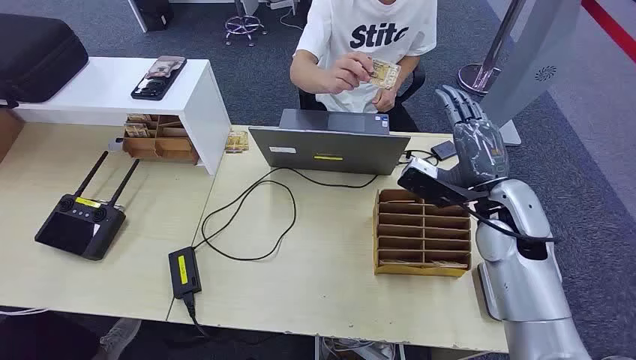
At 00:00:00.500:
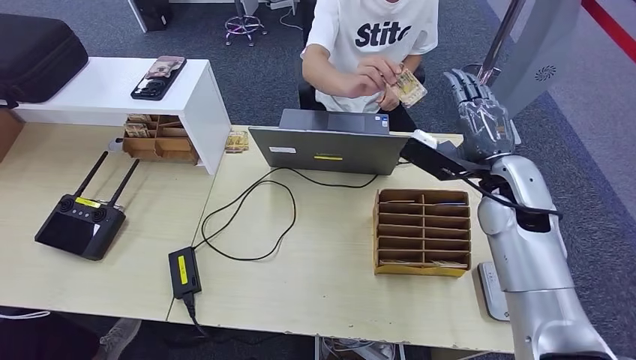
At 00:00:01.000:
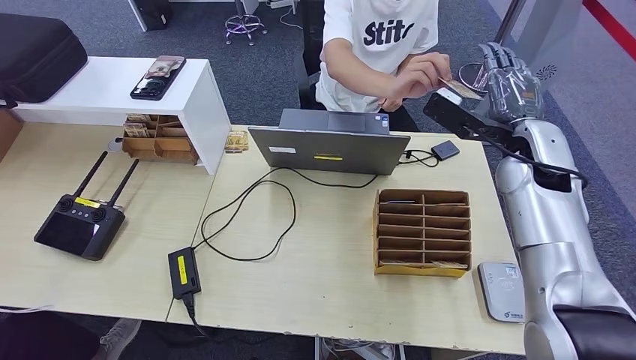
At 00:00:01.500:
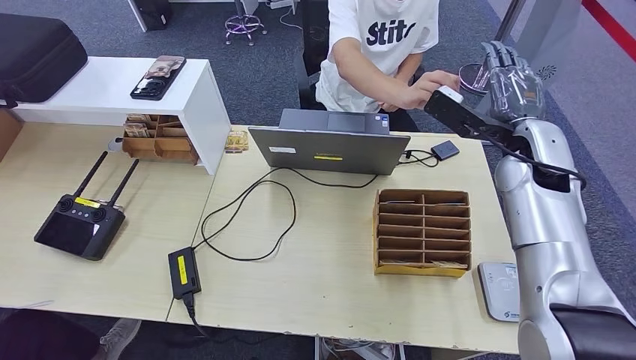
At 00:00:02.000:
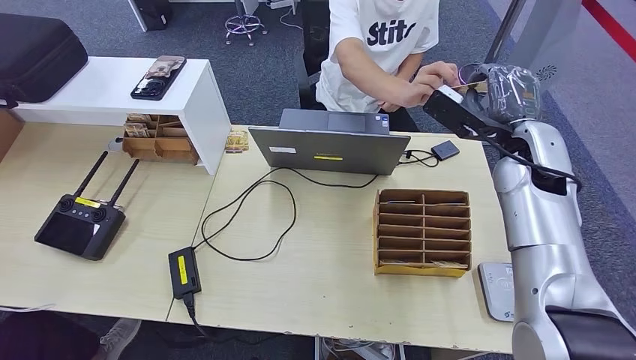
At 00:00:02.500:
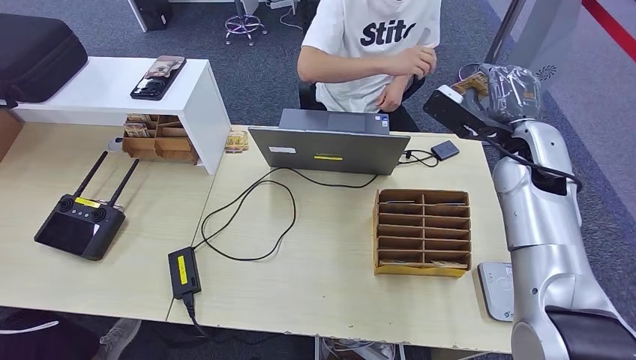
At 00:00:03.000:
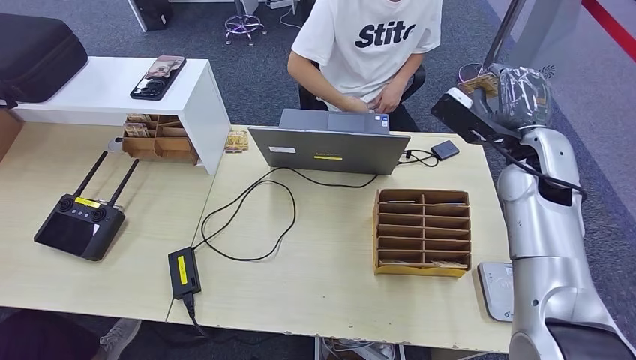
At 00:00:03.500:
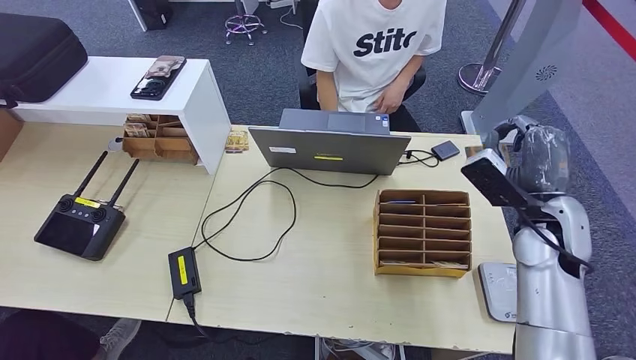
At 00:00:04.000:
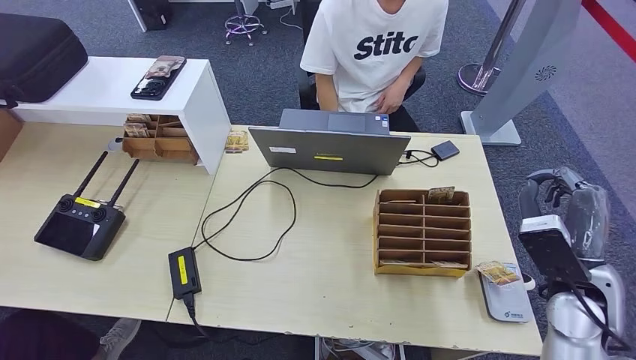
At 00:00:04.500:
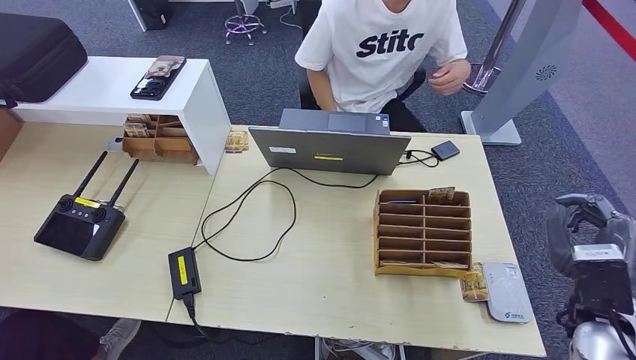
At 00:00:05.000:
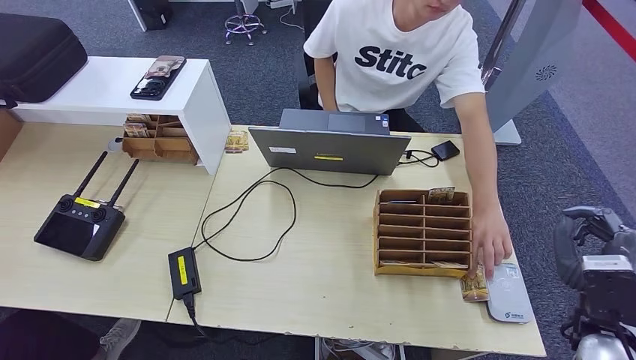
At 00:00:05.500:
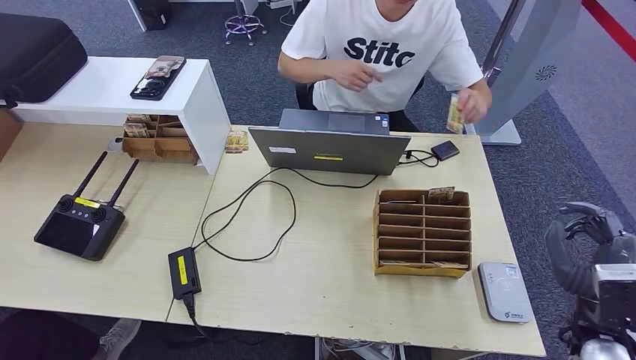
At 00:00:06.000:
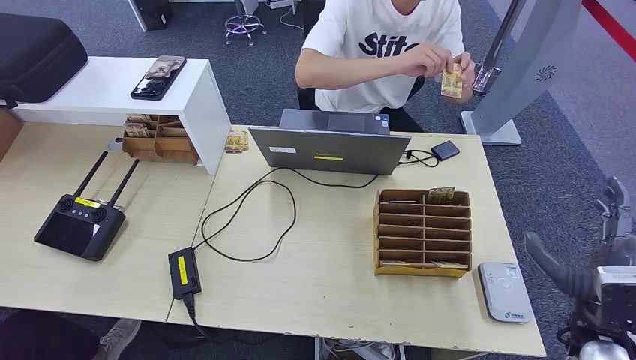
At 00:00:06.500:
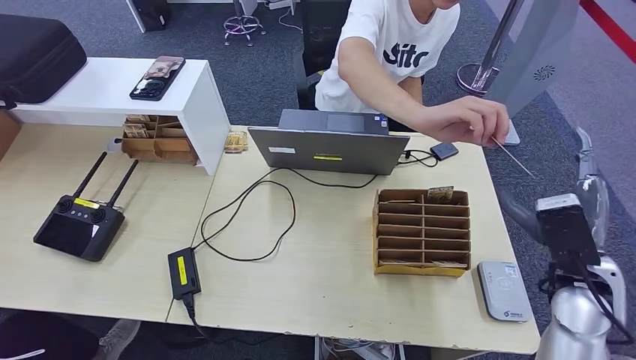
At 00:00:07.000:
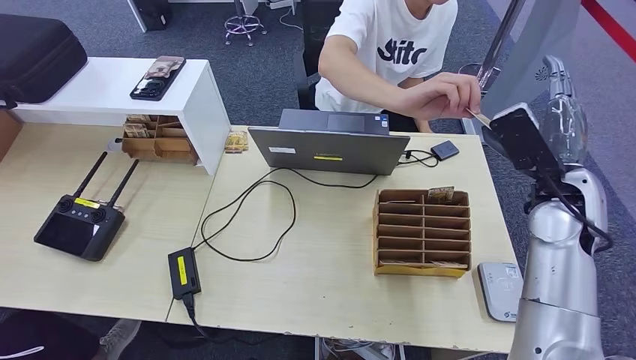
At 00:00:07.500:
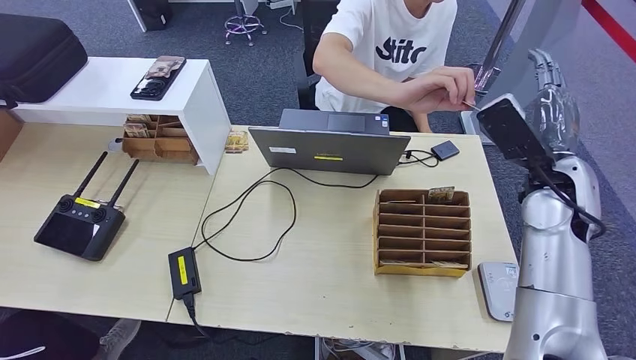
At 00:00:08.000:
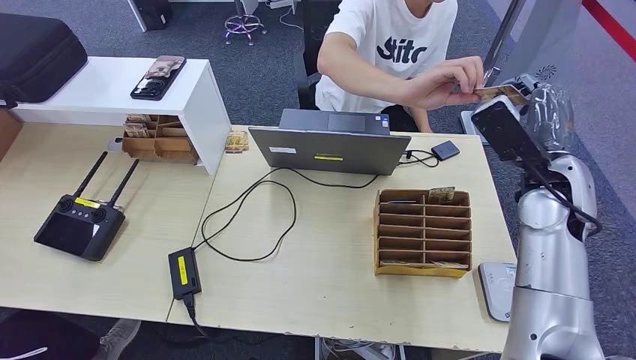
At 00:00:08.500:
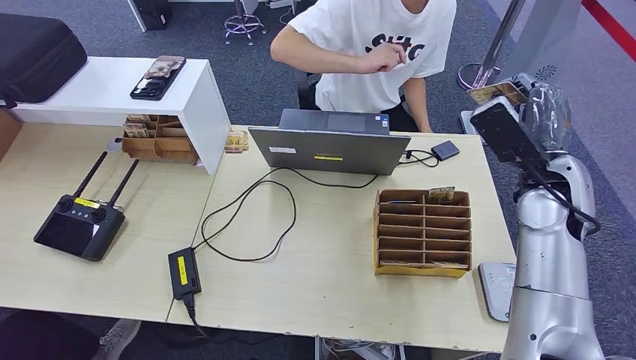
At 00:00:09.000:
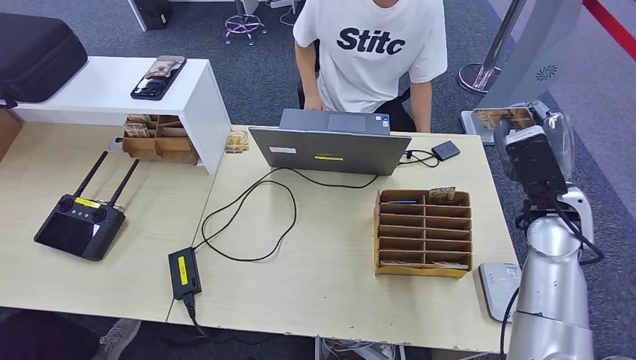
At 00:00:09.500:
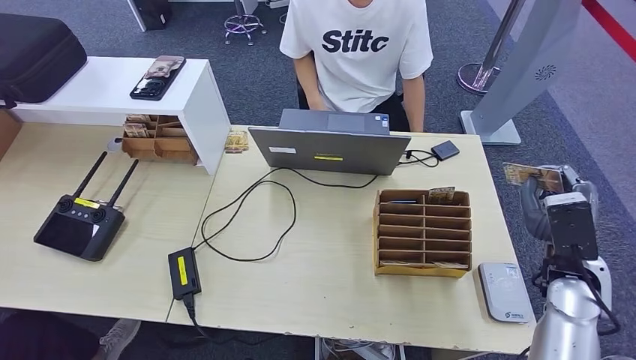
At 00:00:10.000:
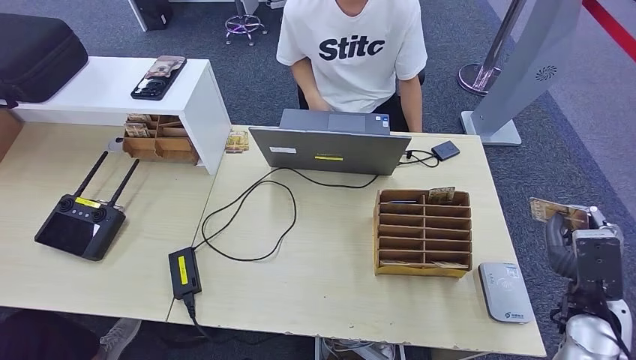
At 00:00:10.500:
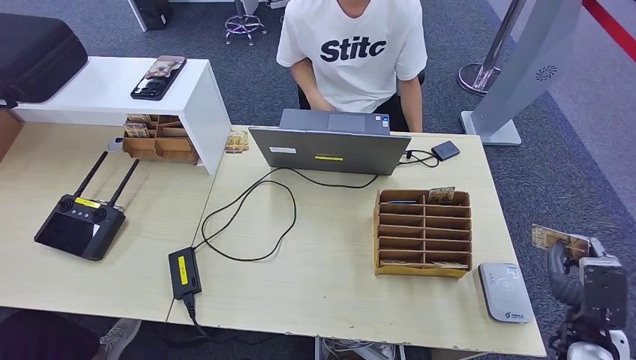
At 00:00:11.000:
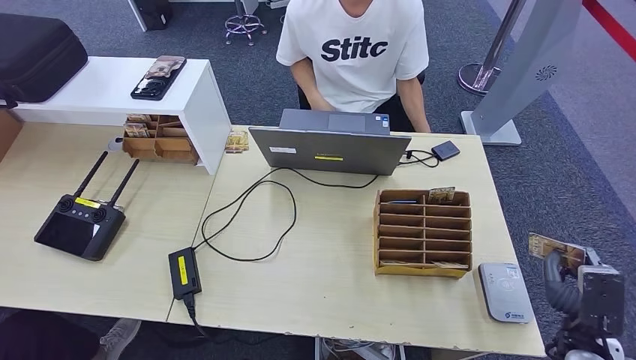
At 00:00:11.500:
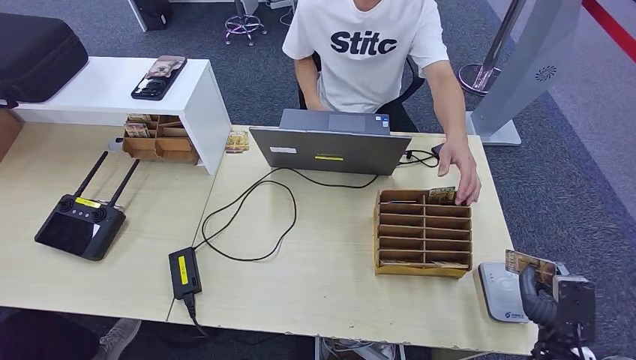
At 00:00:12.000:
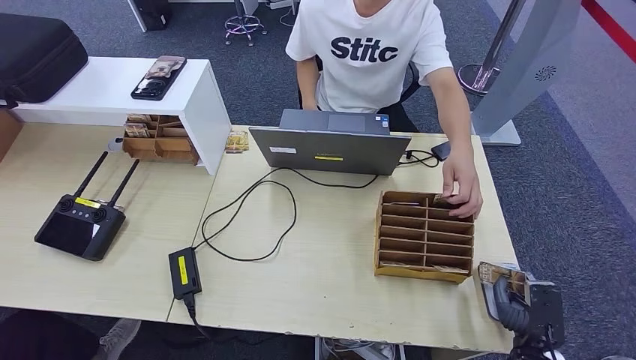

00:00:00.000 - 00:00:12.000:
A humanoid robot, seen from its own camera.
Step, 00:00:00.000 - 00:00:03.500: Take the ID card from the person's hand.
Step, 00:00:07.000 - 00:00:10.000: Take the ID card from the person's hand.
00:00:02.000 - 00:00:04.000: The right hand goes approximately 20 cm backward and downward.
00:00:04.000 - 00:00:06.000: The right hand goes roughly 5 cm backward.
00:00:06.000 - 00:00:08.000: The right hand travels forward and upward by about 20 cm.
00:00:08.000 - 00:00:10.000: The right hand shifts about 25 cm downward, backward and to the right.
00:00:10.000 - 00:00:12.000: The right hand heads downward, backward and to the left, covering roughly 15 cm.

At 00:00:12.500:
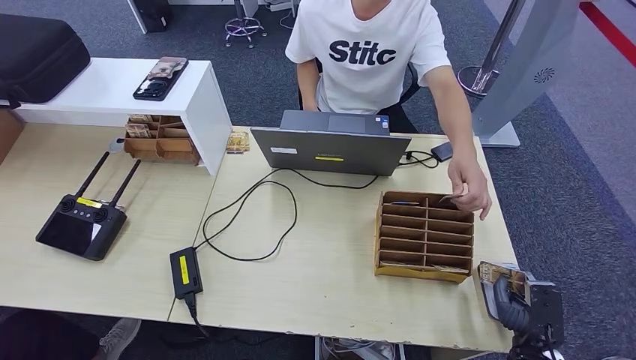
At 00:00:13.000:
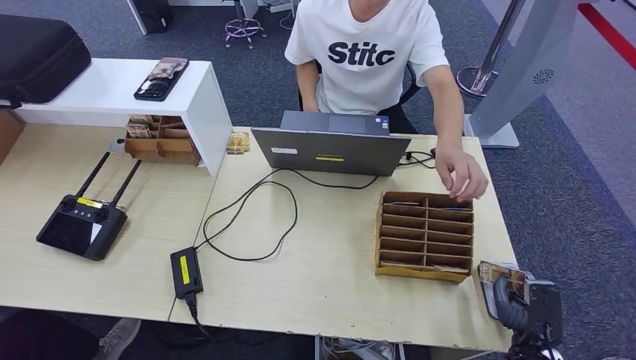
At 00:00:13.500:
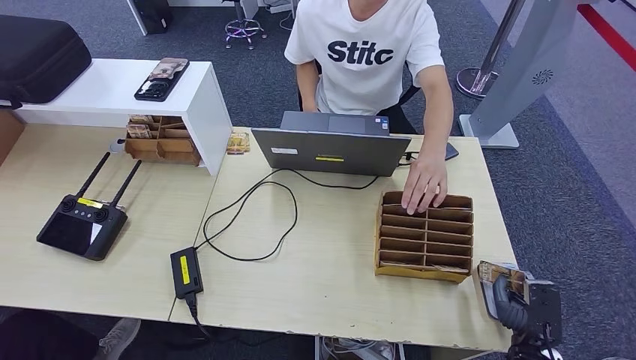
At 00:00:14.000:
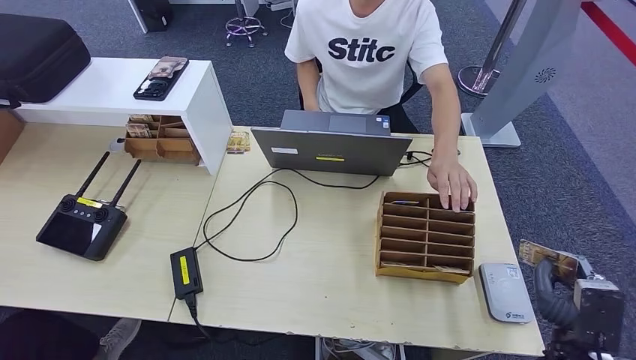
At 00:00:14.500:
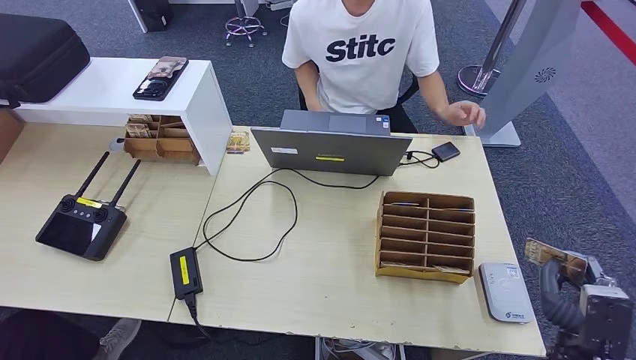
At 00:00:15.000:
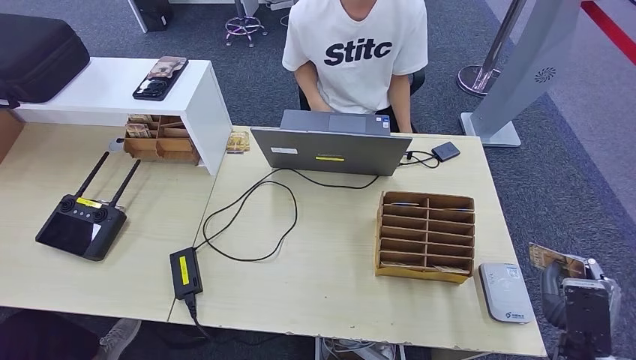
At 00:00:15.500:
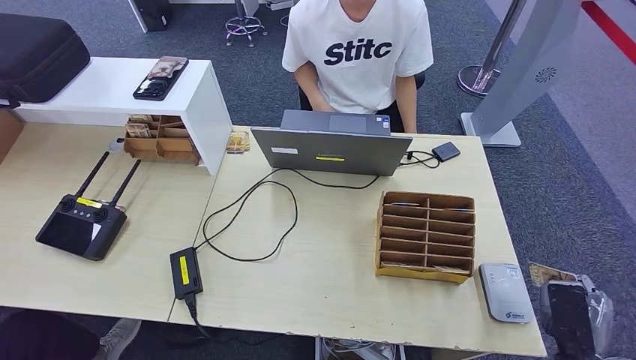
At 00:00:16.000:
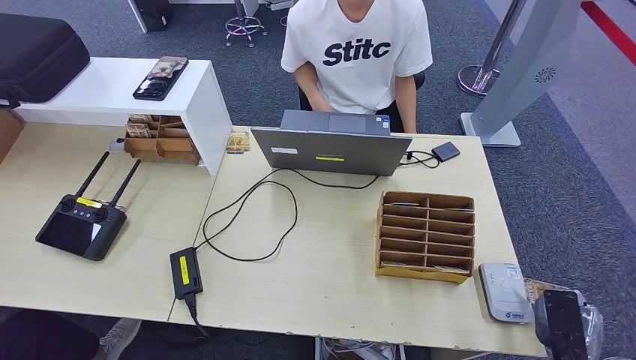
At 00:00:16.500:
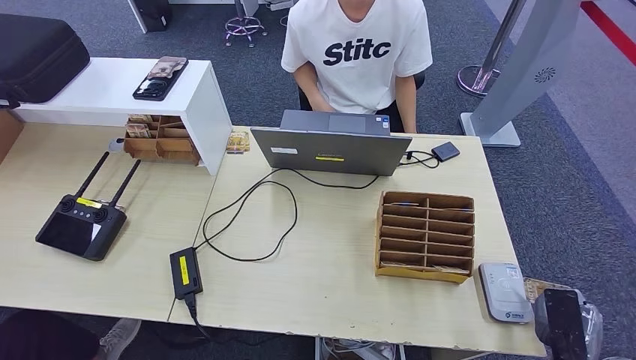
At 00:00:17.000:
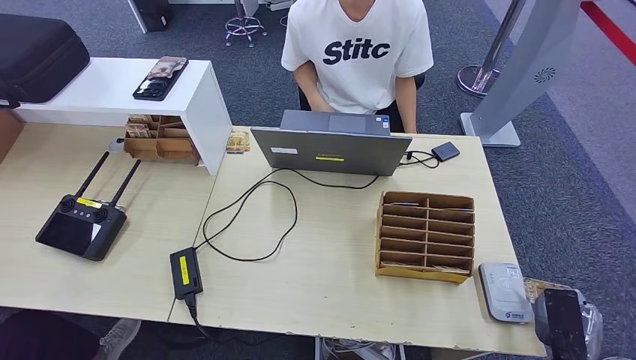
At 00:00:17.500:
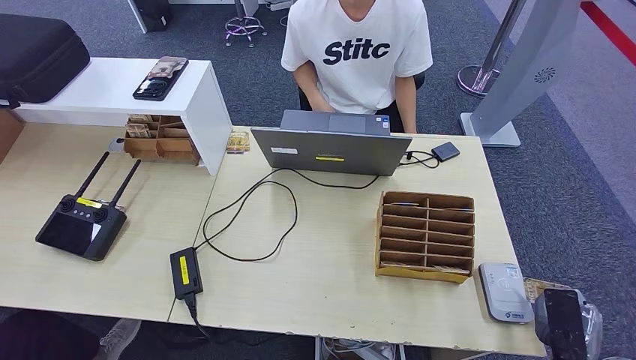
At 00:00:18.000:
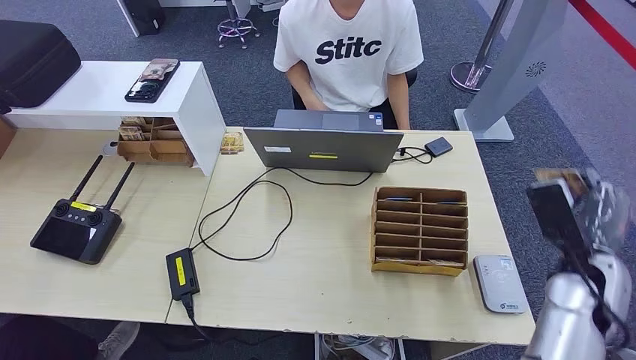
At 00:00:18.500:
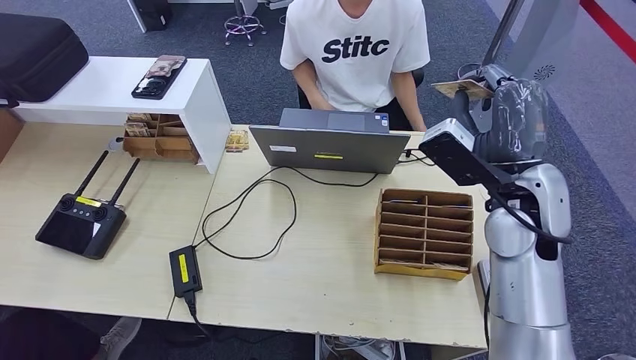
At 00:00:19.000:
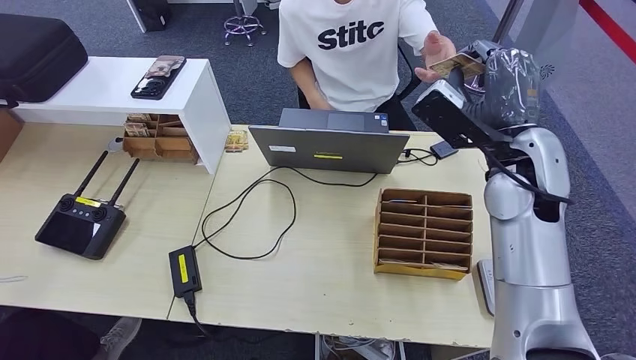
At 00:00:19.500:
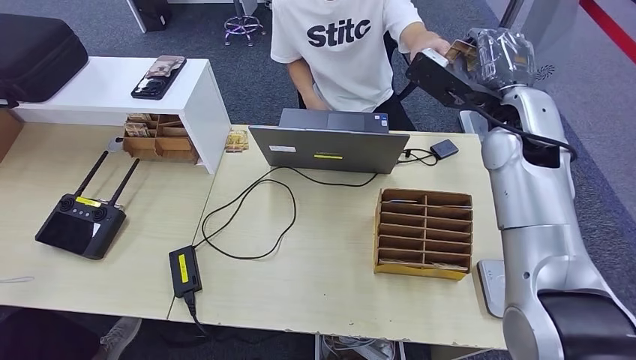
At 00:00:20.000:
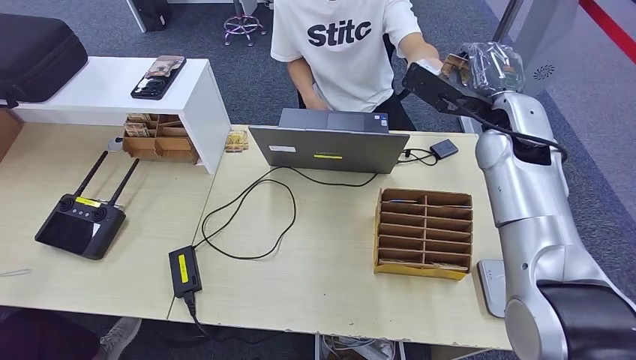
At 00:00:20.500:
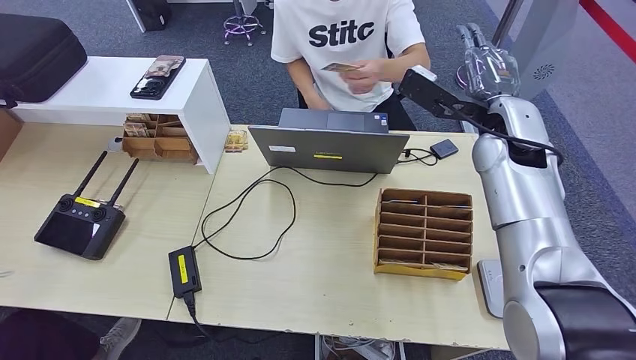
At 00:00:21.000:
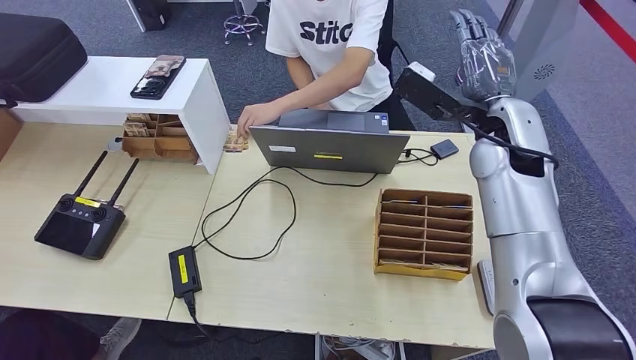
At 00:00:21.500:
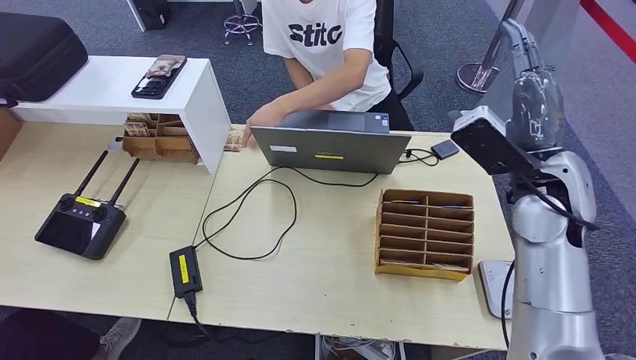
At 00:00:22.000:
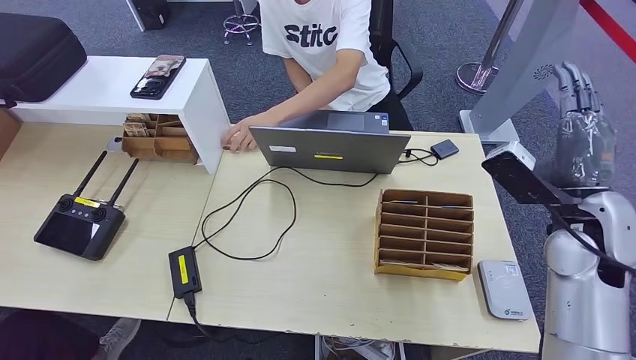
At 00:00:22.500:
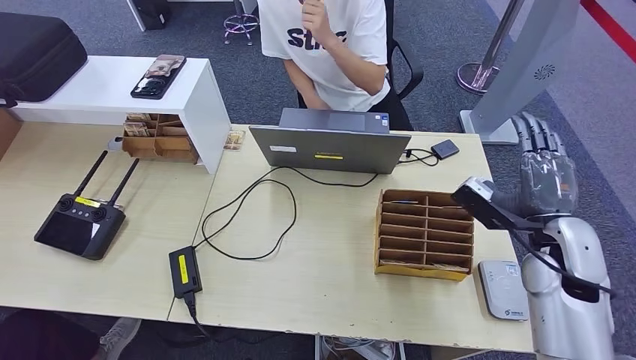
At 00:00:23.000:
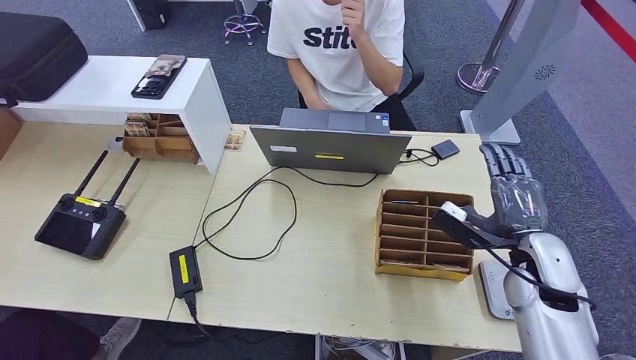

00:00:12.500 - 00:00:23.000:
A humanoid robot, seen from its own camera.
Step, 00:00:12.500 - 00:00:18.000: Place the ID card on the card reader.
Step, 00:00:18.500 - 00:00:22.000: Hand the ID card to the person.
00:00:12.500 - 00:00:14.500: The right hand heads upward, covering approximately 10 cm.
00:00:14.500 - 00:00:16.500: The right hand shifts about 5 cm downward.
00:00:19.000 - 00:00:21.000: The right hand is displaced forward by approximately 5 cm.
00:00:21.000 - 00:00:23.000: The right hand heads downward, backward and to the right, covering roughly 25 cm.
